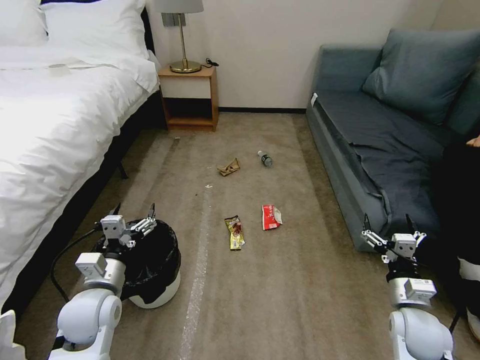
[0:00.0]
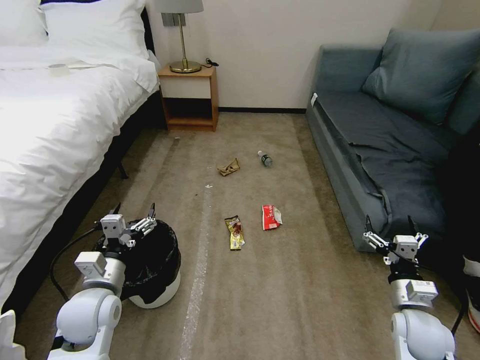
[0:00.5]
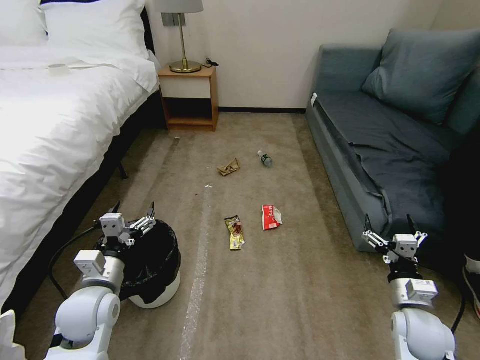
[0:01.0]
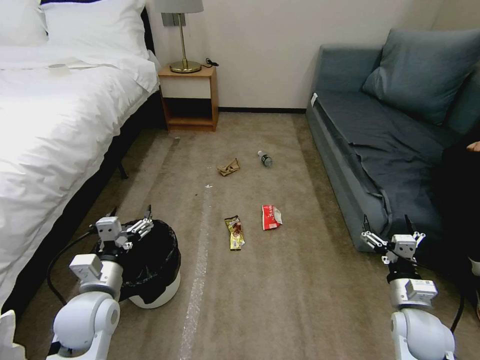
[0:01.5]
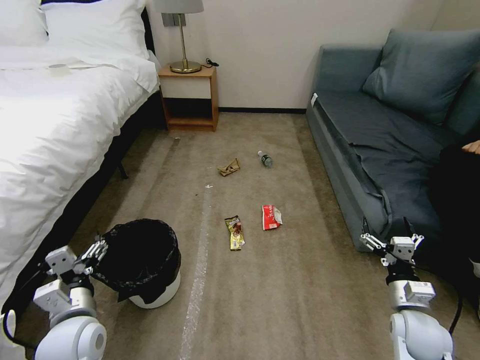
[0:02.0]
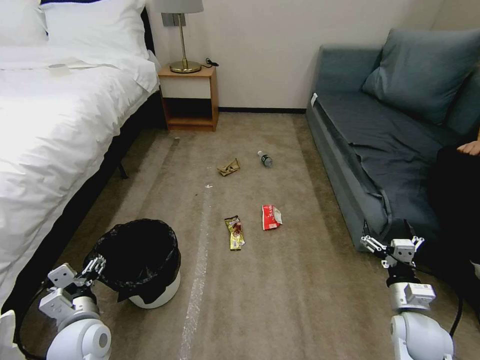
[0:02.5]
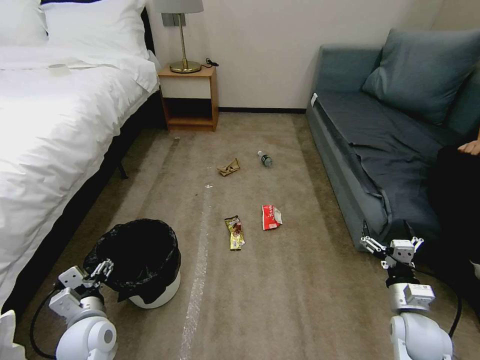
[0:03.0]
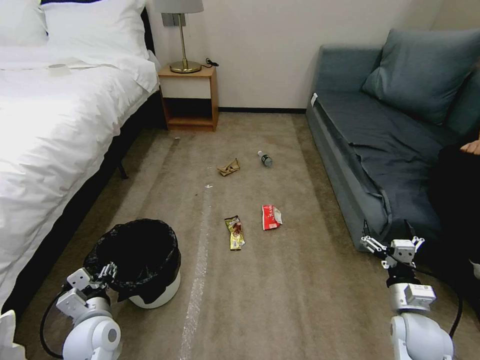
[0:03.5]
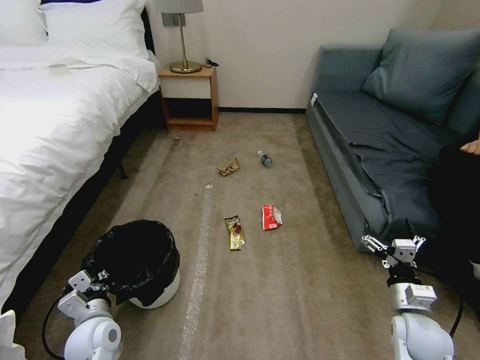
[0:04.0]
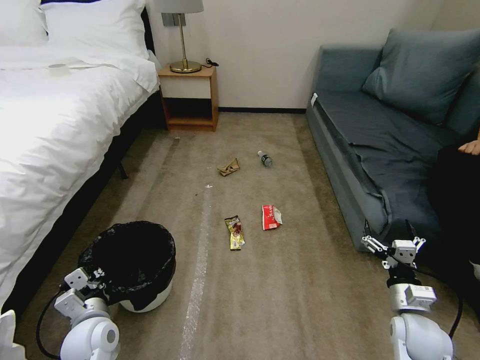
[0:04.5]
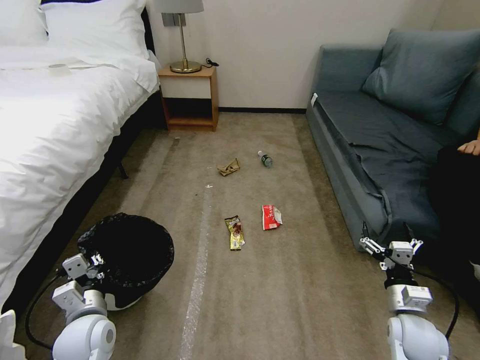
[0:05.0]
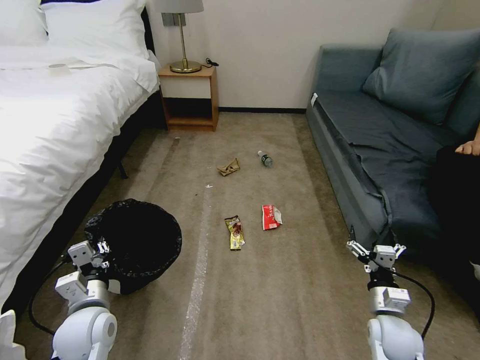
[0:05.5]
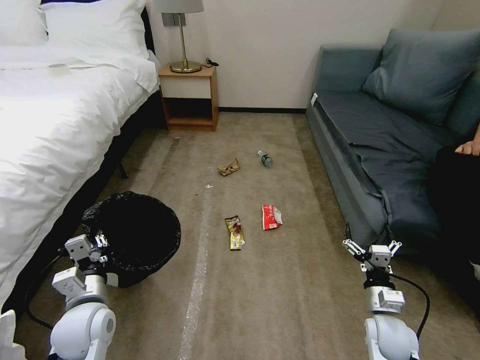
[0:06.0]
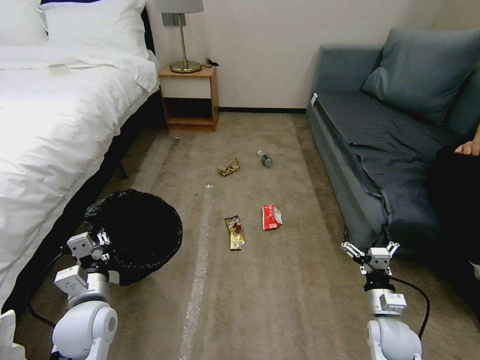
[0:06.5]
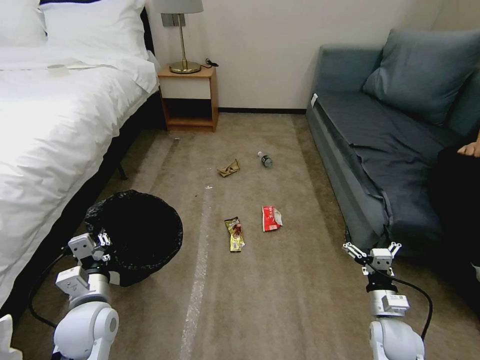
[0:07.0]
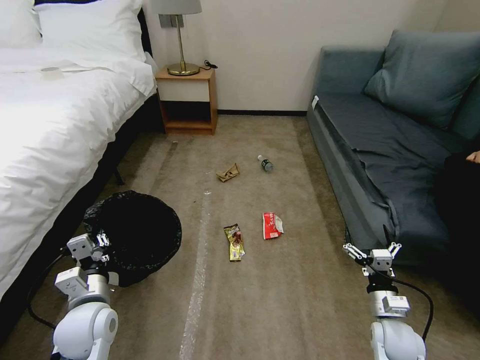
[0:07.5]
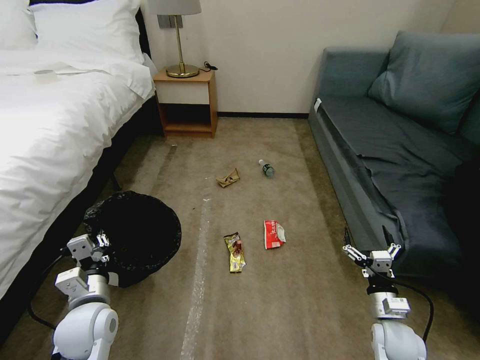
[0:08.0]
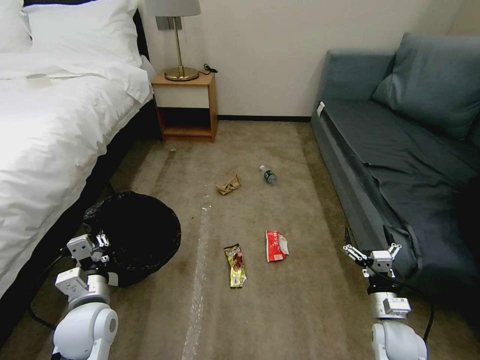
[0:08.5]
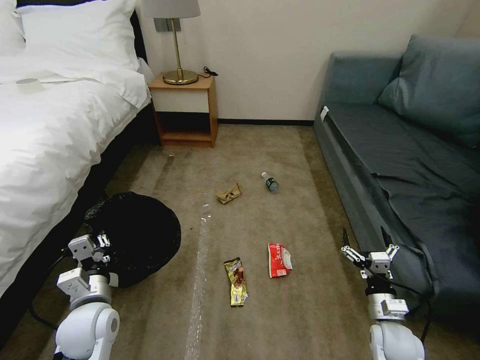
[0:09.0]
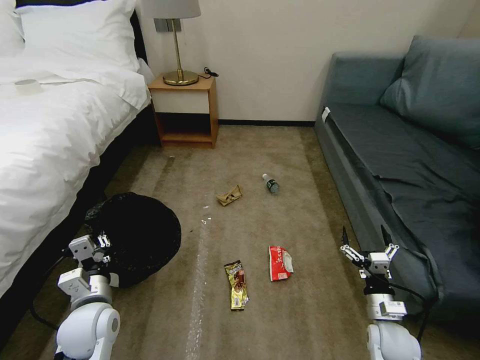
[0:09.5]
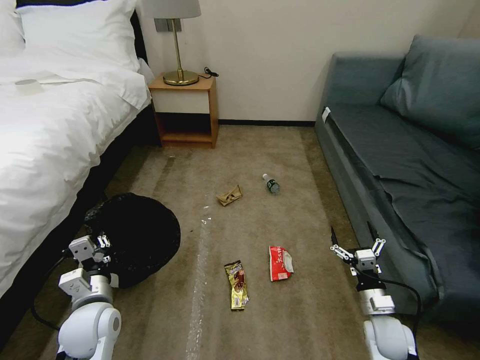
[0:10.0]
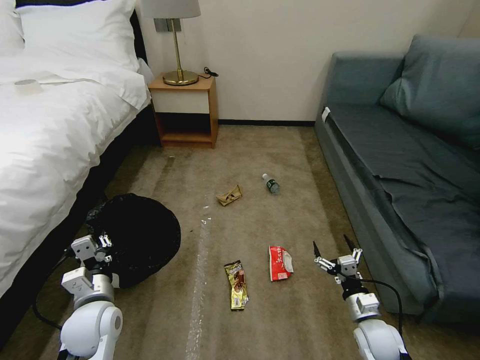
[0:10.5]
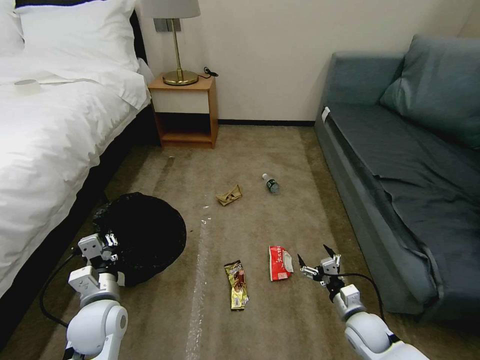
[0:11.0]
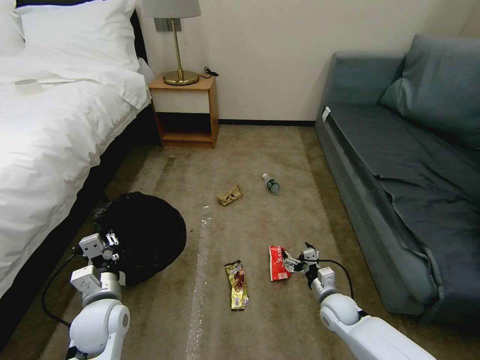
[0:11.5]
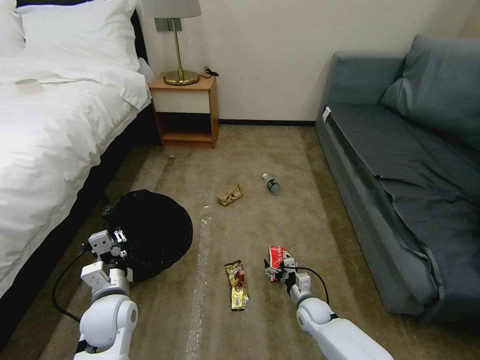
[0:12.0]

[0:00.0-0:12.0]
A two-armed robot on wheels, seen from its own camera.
Task of the whole recording: Pick up the trash bin, then pick up the garbage on the floor and place it into the trash bin.
0:02.0 to 0:04.0: The left gripper shifts about 5 cm downward, and closes its fingers.
0:04.0 to 0:06.0: The right gripper ends up approximately 5 cm from where it was, while the left gripper moves upward, roughly 5 cm.
0:06.0 to 0:08.0: The grippers move only a little.
0:10.0 to 0:12.0: The right gripper heads to the left, downward and forward, covering approximately 20 cm.

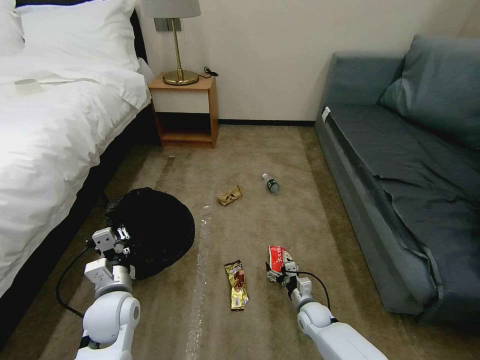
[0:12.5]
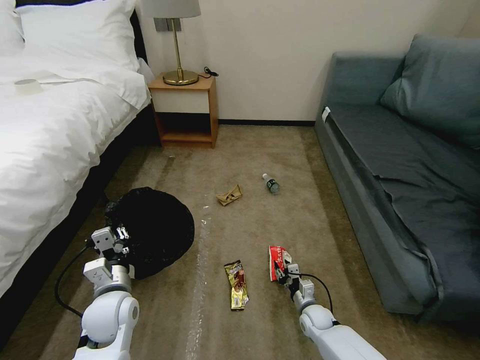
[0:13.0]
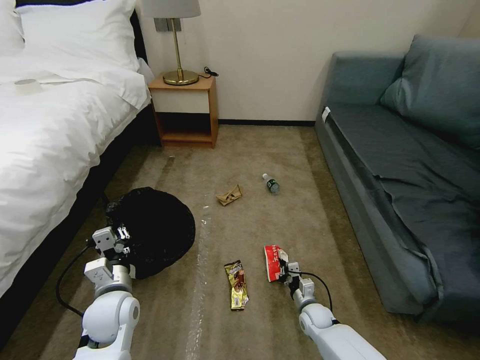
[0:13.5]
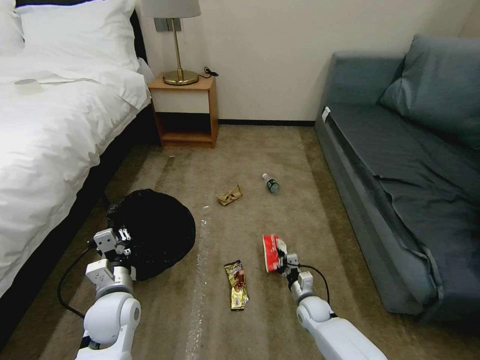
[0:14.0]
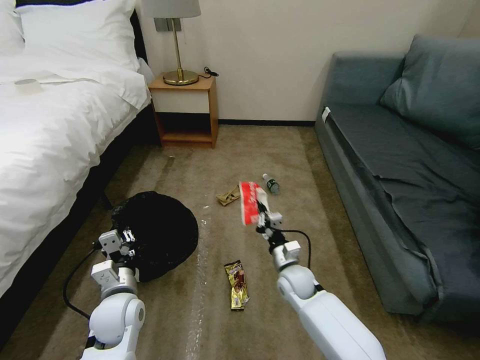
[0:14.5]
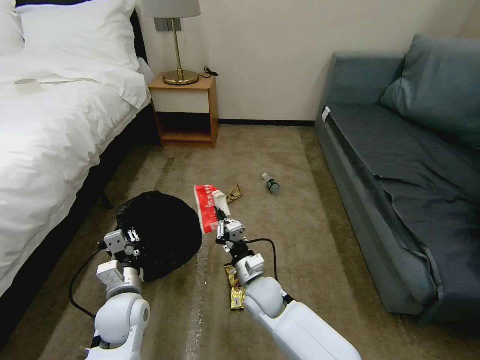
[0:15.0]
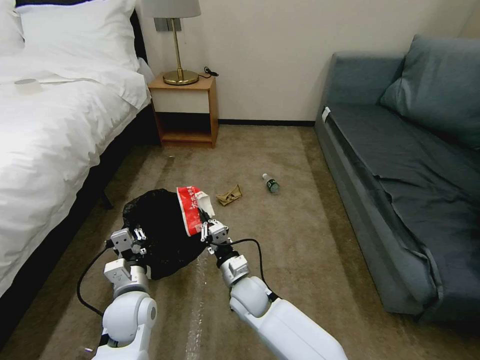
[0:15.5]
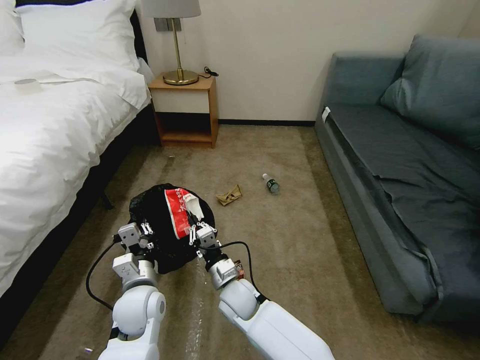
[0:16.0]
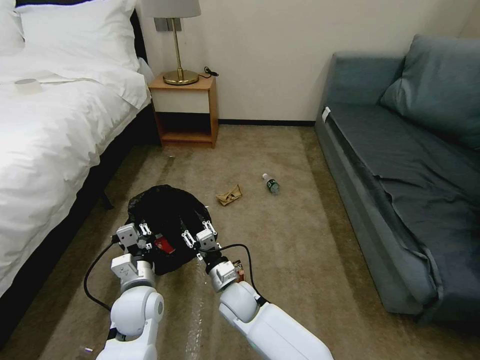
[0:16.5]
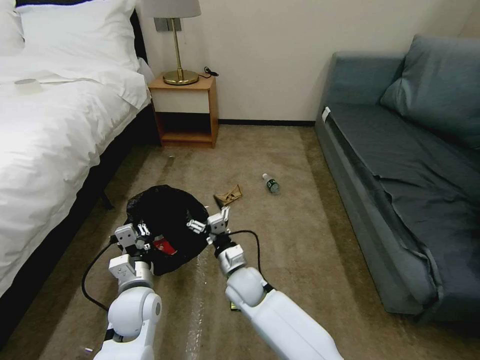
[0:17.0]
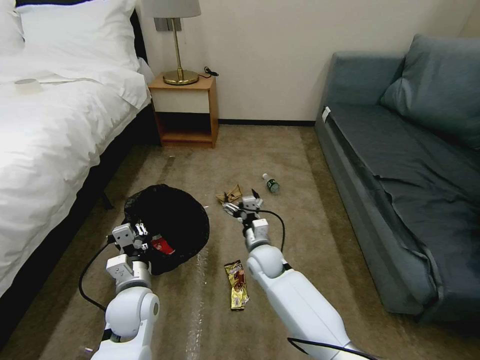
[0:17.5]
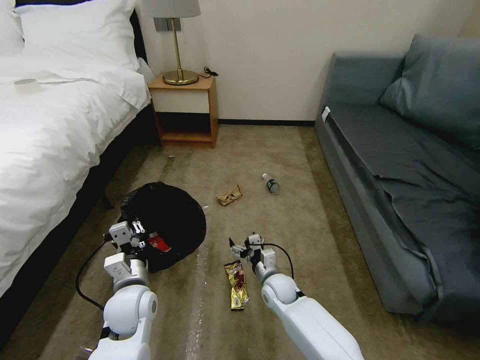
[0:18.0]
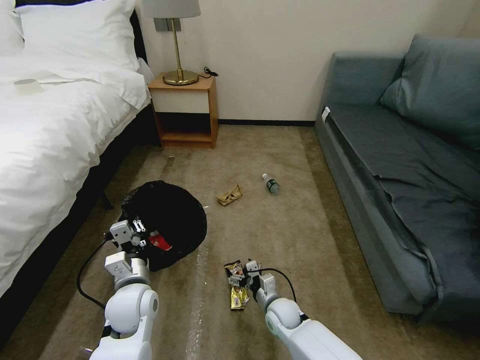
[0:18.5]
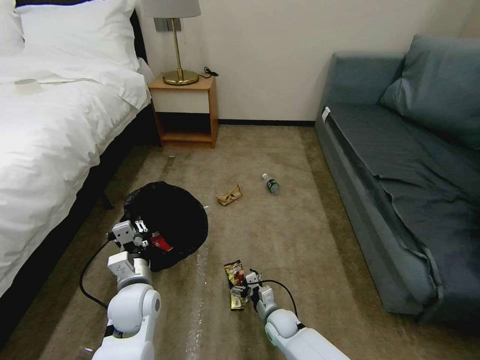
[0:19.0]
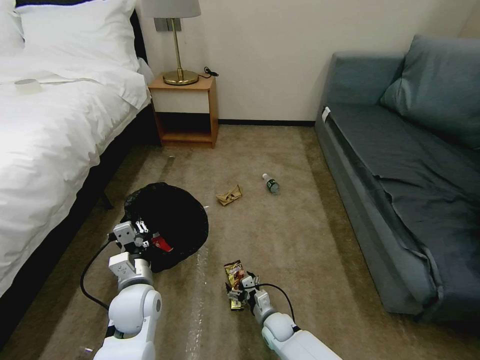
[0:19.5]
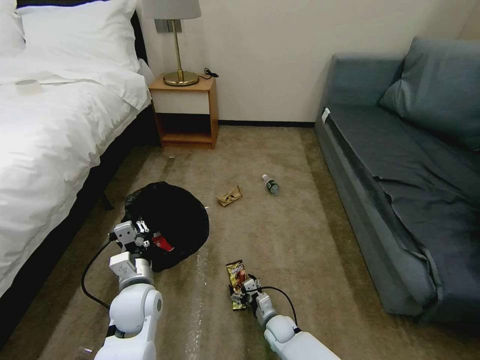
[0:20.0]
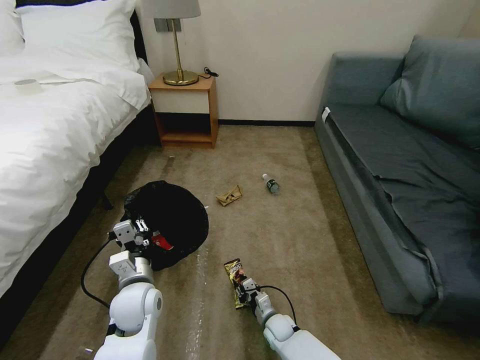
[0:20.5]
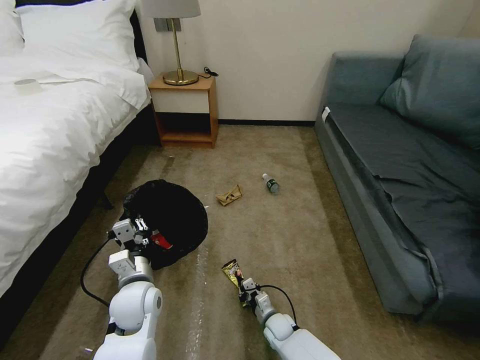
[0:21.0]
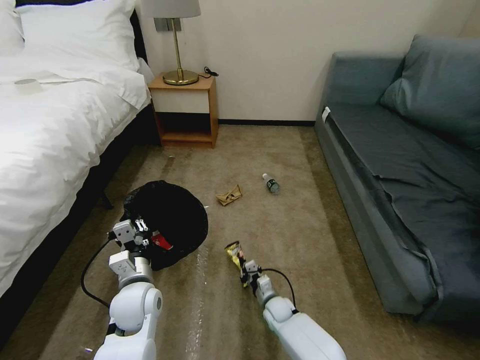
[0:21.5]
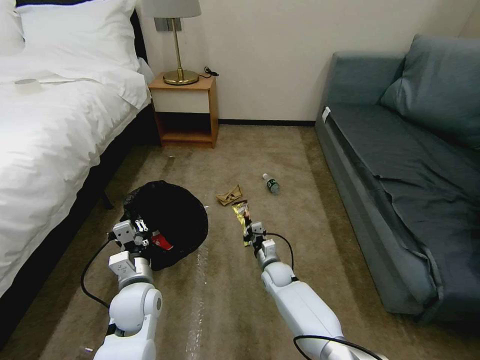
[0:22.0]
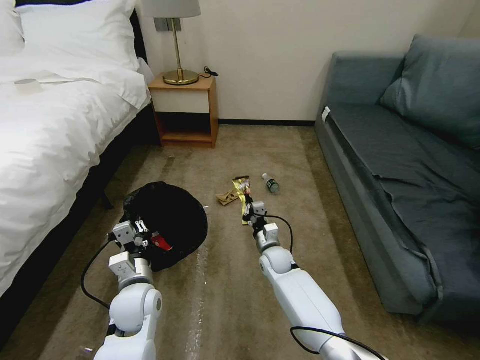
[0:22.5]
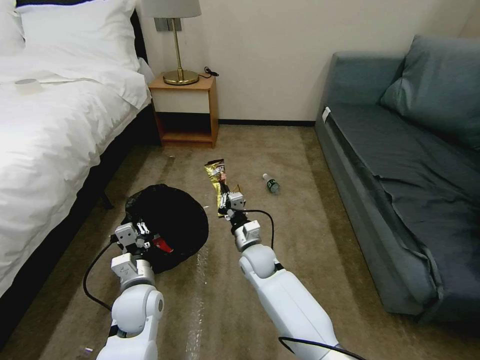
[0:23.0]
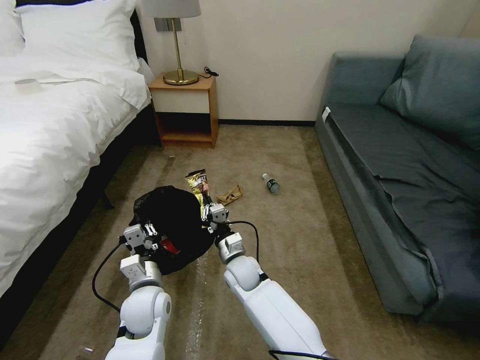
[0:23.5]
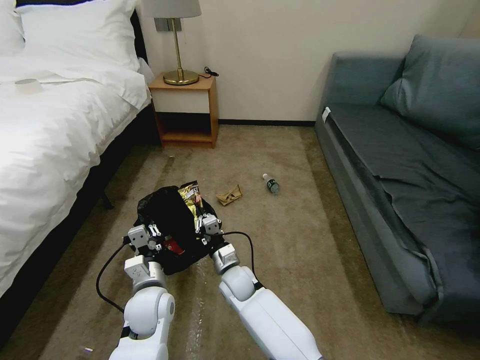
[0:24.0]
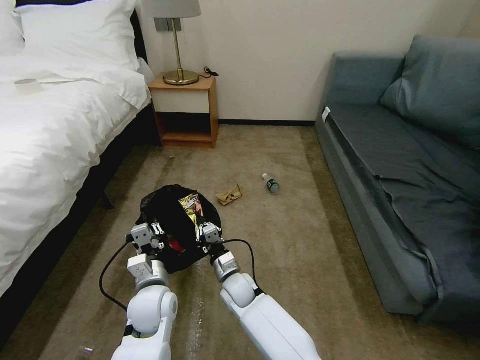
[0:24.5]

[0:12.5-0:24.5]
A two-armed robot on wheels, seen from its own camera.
Task of the whole recording: Pick up the trash bin, then pick up the garbage on the floor and place it into the trash bin.
0:12.5 to 0:14.5: The right gripper heads upward and to the left, covering some 15 cm, and closes.
0:14.5 to 0:16.5: The right gripper goes some 15 cm to the left, and opens.
0:16.5 to 0:18.5: The right gripper moves to the right and downward, about 15 cm, and opens.
0:18.5 to 0:20.5: The right gripper moves downward, approximately 10 cm, and closes its fingers.
0:20.5 to 0:22.5: The right gripper goes about 20 cm upward and forward, and closes up.
0:22.5 to 0:24.5: The right gripper shifts about 15 cm to the left and backward.

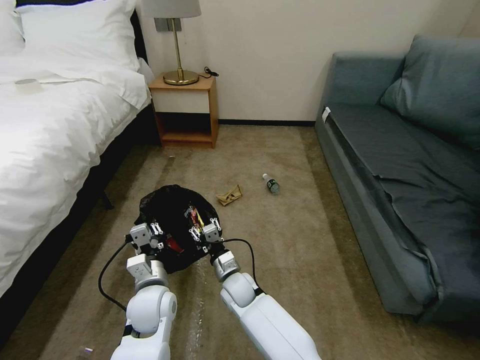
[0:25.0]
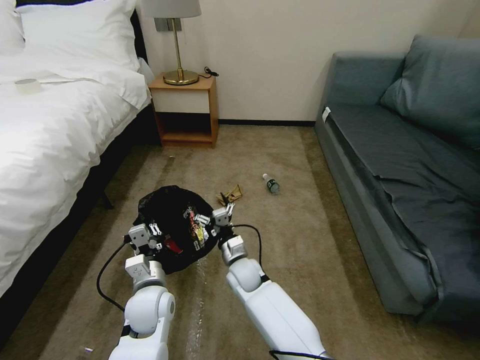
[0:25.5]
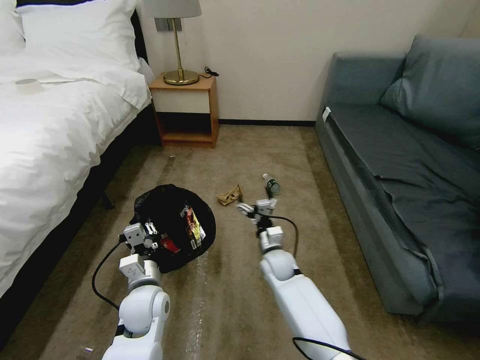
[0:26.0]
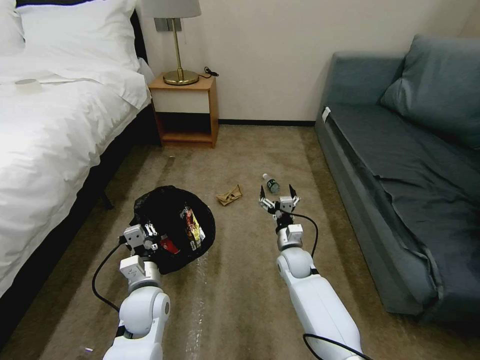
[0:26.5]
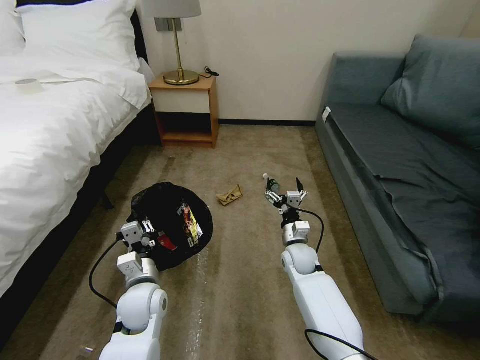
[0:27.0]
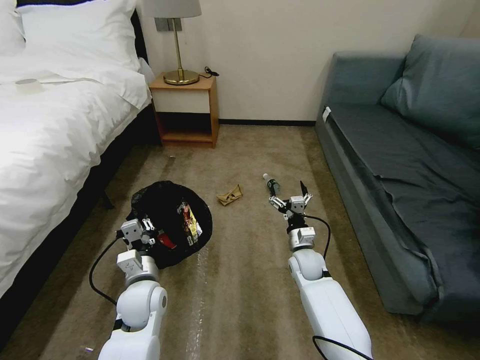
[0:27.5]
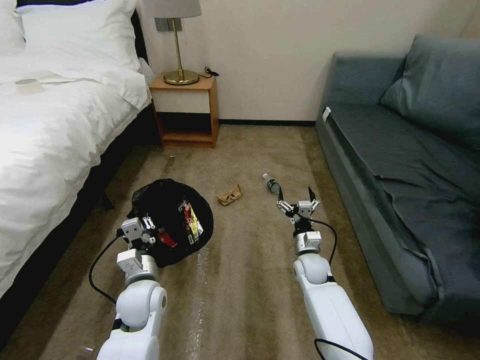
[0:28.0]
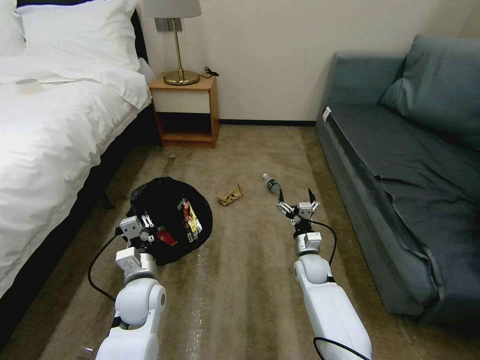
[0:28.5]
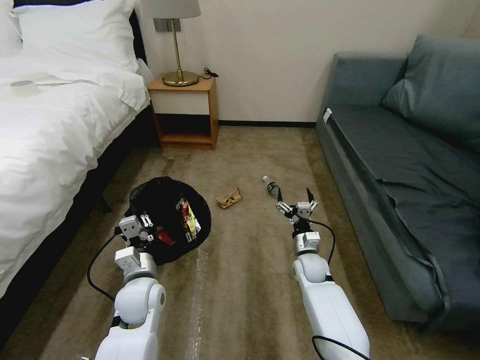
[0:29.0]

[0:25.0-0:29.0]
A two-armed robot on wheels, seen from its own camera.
Task of the whole recording: Pick up the trash bin, then pick up the garbage on the floor and place it into the trash bin.
0:25.0 to 0:27.0: The right gripper goes approximately 20 cm to the right and forward, and opens.
0:27.0 to 0:29.0: The right gripper moves roughly 5 cm.
